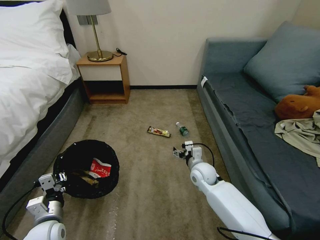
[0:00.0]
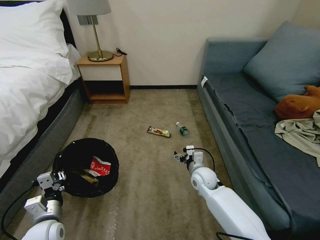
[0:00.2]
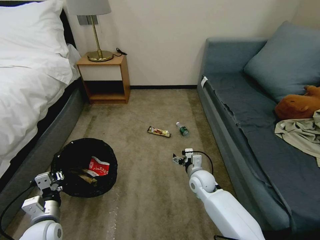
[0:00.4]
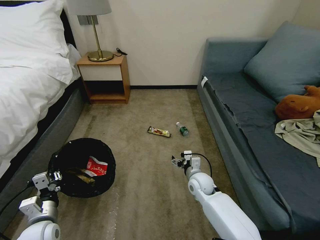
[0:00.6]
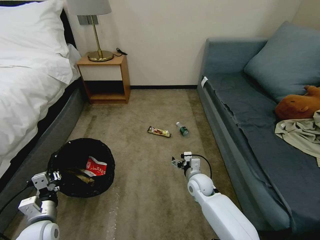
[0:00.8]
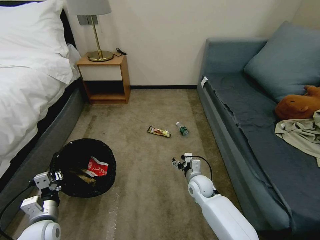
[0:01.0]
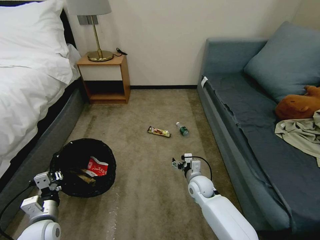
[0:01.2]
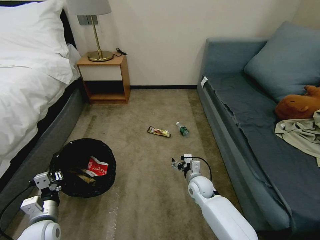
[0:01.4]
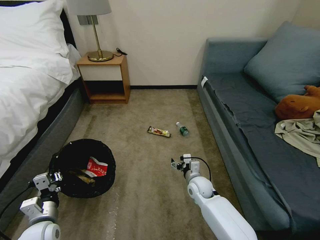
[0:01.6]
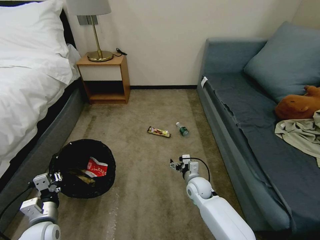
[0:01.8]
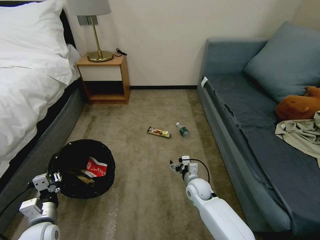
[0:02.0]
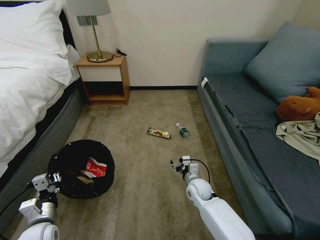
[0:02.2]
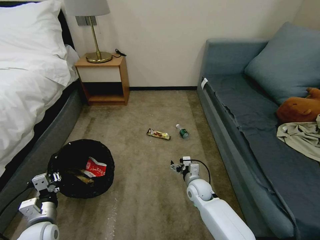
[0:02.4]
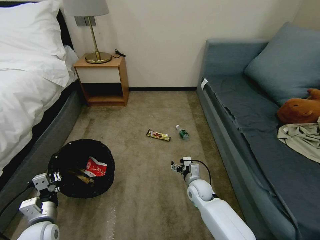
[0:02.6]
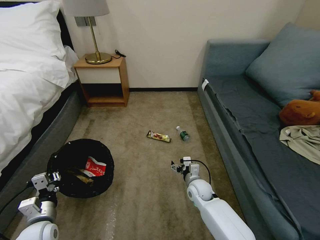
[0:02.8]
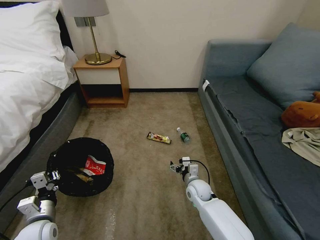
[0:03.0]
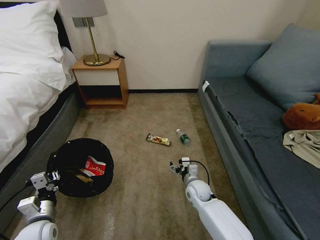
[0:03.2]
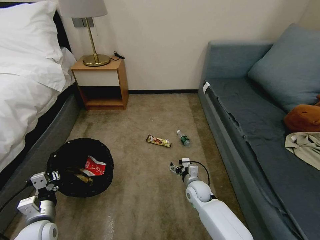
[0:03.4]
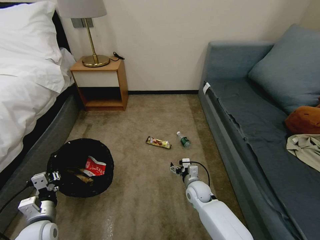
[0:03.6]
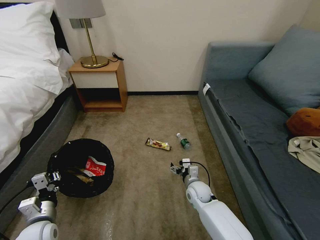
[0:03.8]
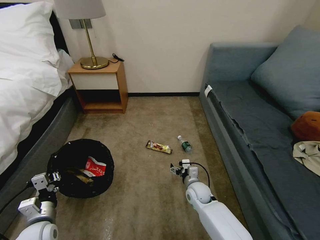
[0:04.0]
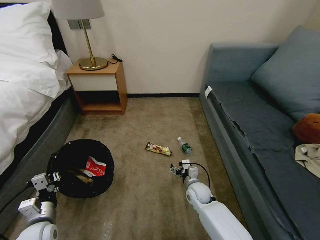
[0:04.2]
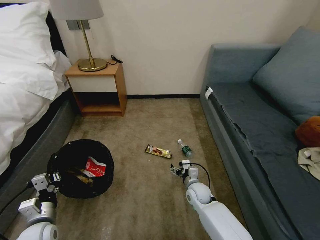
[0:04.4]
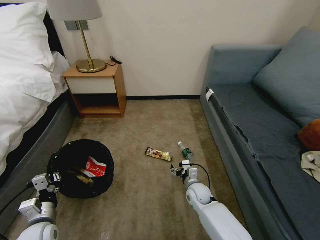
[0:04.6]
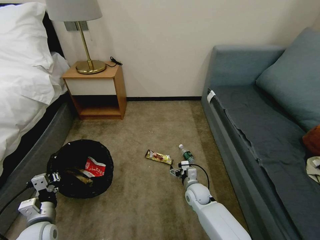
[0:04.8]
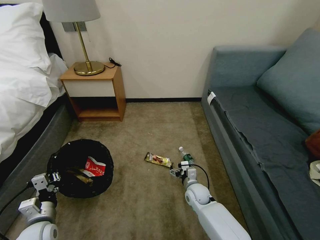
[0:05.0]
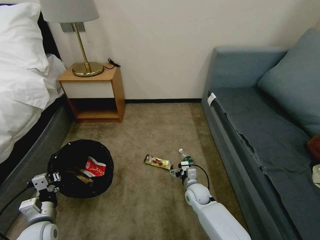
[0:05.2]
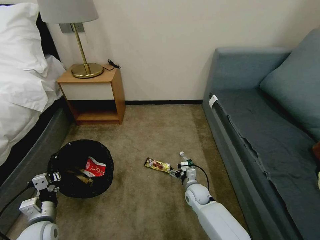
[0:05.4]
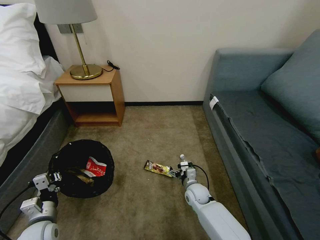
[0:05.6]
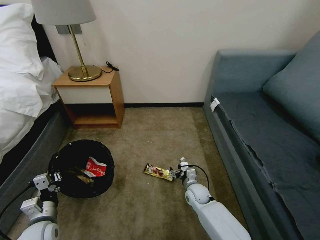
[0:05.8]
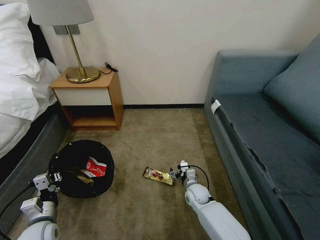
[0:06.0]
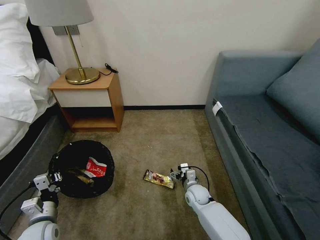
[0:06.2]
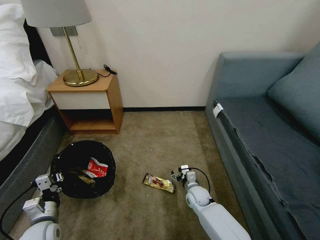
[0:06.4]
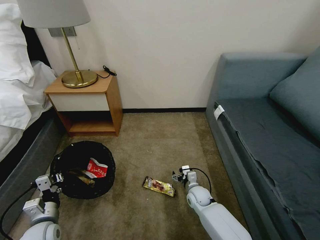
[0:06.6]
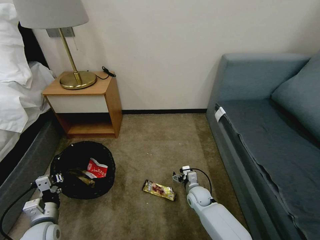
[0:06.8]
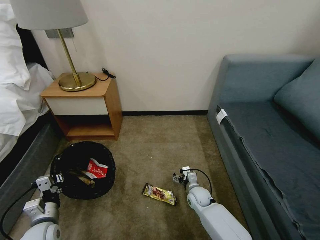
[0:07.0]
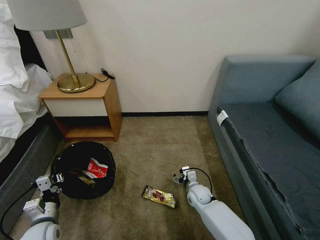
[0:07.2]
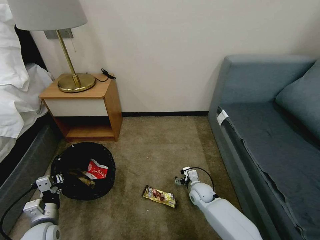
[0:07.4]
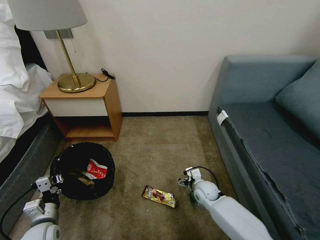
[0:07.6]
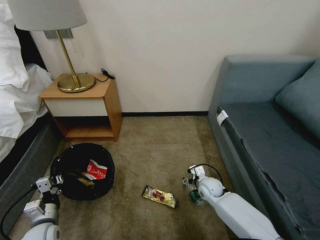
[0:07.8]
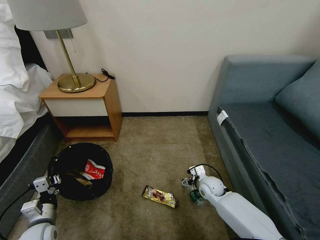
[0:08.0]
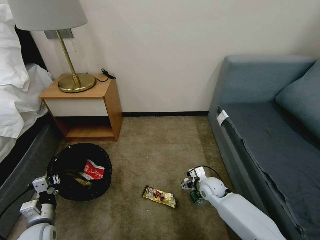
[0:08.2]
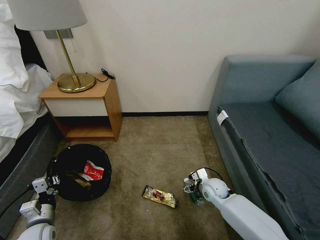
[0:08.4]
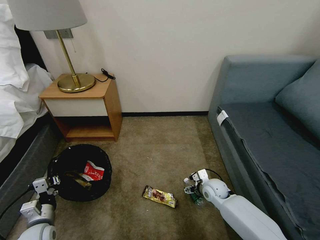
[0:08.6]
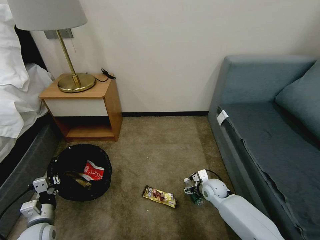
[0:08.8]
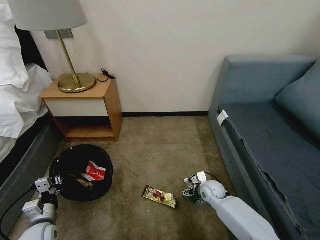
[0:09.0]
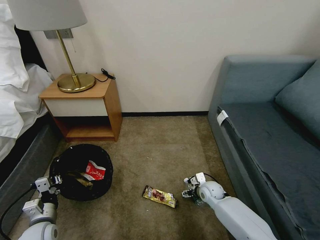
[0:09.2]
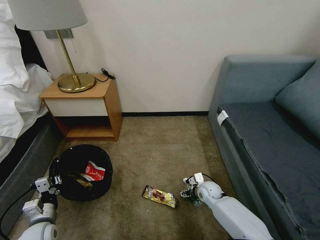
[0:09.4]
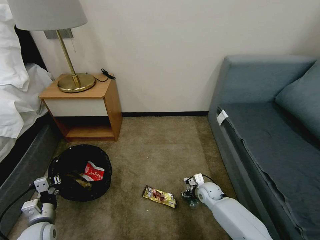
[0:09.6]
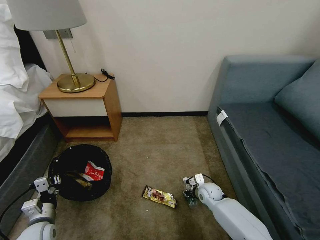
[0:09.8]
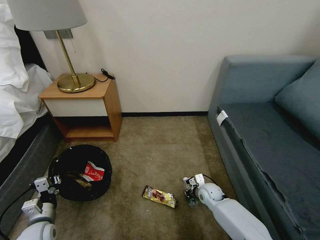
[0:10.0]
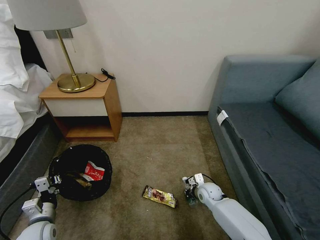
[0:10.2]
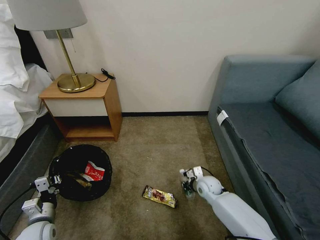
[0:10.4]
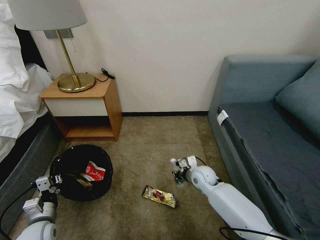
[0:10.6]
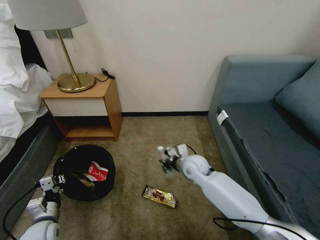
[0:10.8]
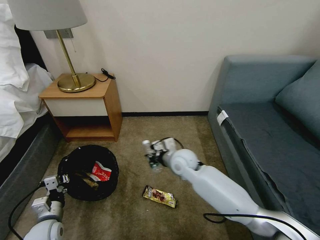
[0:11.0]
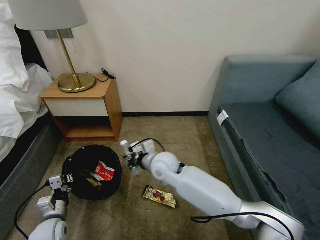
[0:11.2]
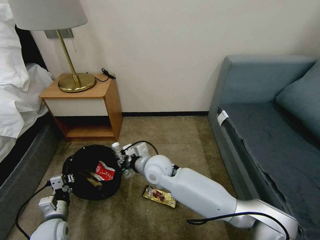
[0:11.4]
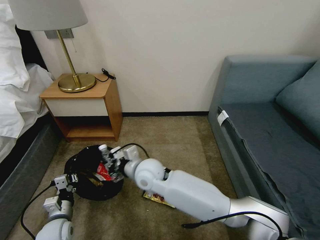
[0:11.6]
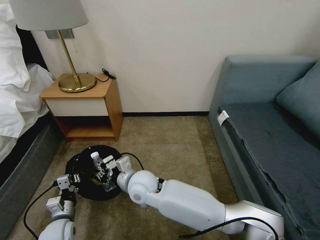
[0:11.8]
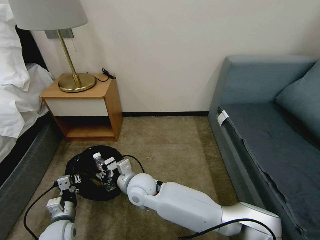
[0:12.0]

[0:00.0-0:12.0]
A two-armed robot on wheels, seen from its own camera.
Task of the whole recording: Pick up the trash bin, then pick up the garbage on the floor and place it into the trash bin.
0:00.0 to 0:01.6: The right gripper heads downward, covering some 5 cm.
0:01.6 to 0:03.0: The grippers make only small movements.
0:03.0 to 0:04.4: Neither gripper changes place.
0:07.6 to 0:09.0: The grippers make only small movements.
0:09.0 to 0:10.4: The right gripper closes.
0:10.4 to 0:12.0: The right gripper goes roughly 30 cm to the left and upward. Meanwhile the left gripper moves to the right, roughly 5 cm.

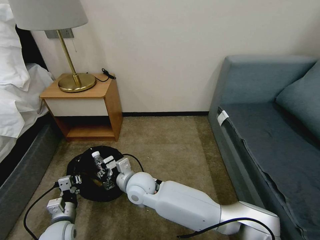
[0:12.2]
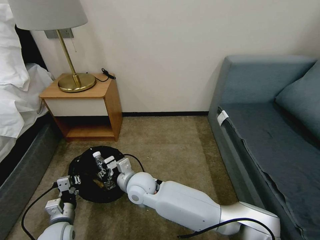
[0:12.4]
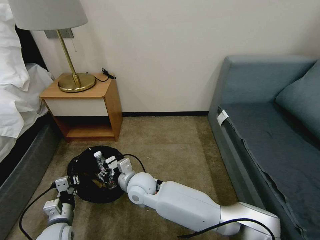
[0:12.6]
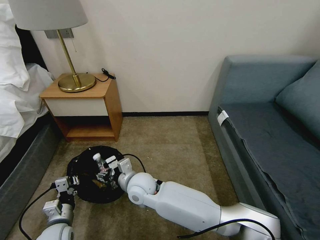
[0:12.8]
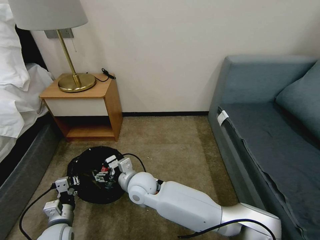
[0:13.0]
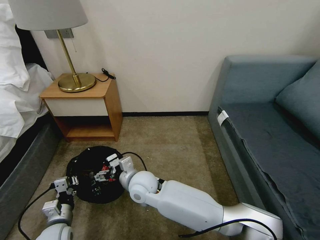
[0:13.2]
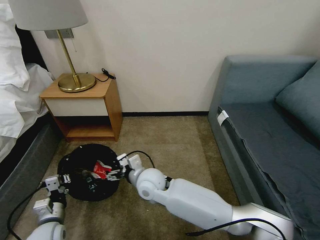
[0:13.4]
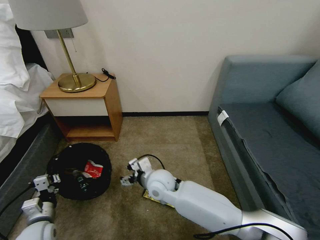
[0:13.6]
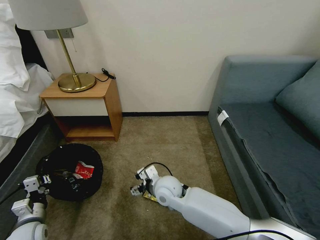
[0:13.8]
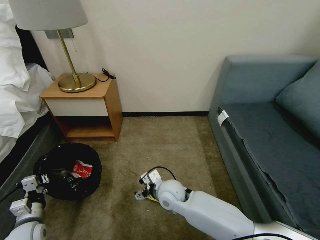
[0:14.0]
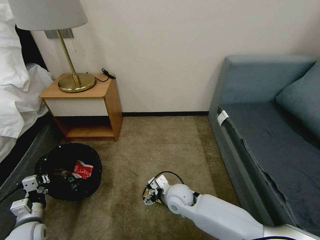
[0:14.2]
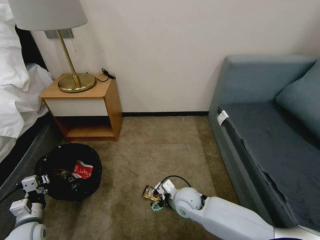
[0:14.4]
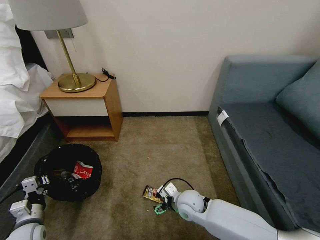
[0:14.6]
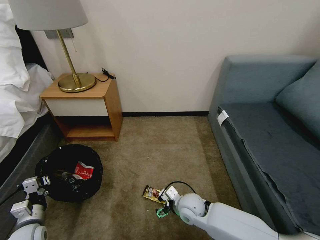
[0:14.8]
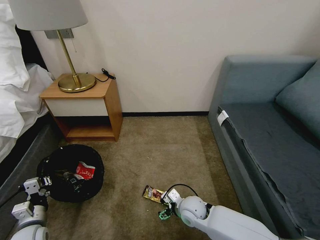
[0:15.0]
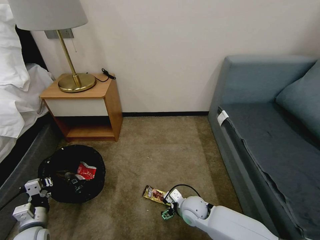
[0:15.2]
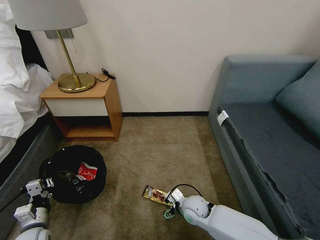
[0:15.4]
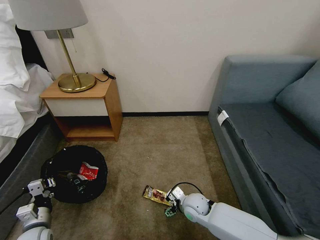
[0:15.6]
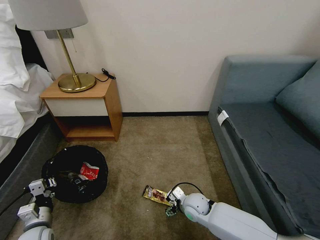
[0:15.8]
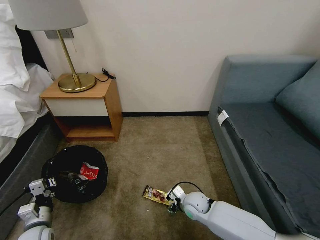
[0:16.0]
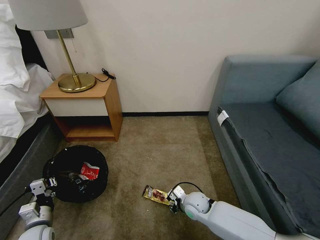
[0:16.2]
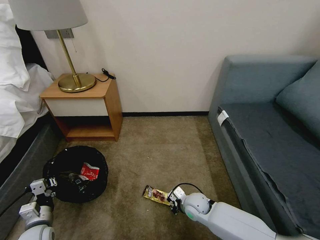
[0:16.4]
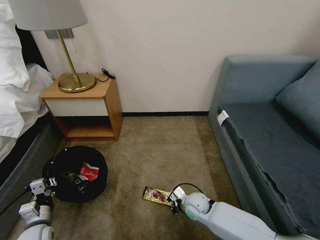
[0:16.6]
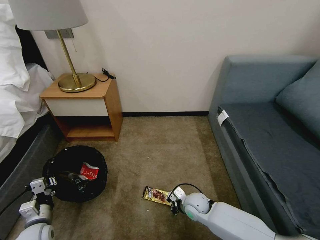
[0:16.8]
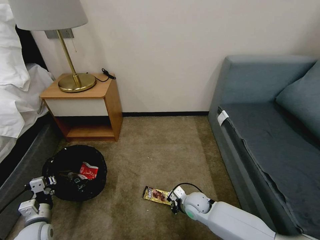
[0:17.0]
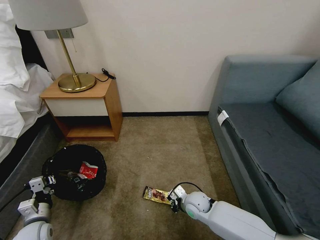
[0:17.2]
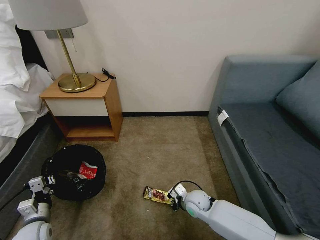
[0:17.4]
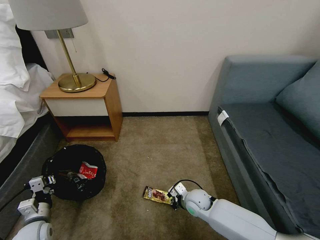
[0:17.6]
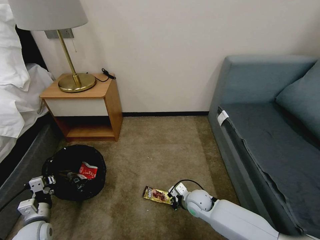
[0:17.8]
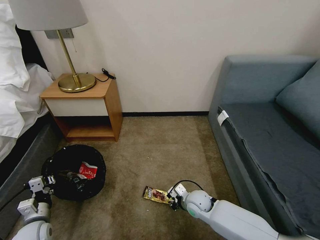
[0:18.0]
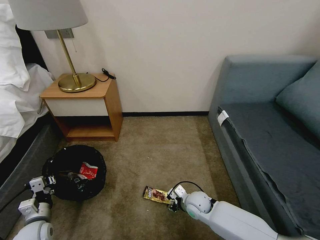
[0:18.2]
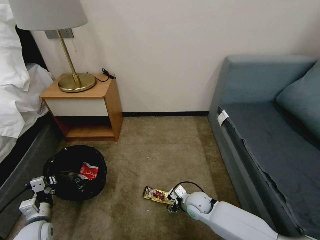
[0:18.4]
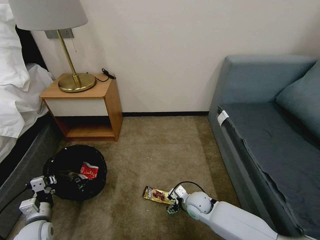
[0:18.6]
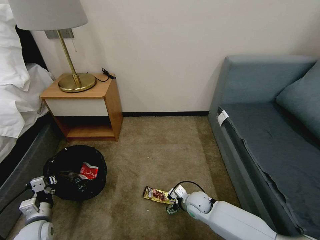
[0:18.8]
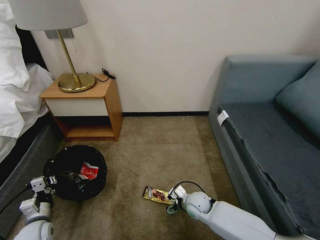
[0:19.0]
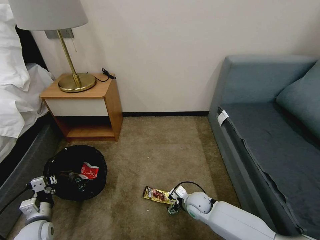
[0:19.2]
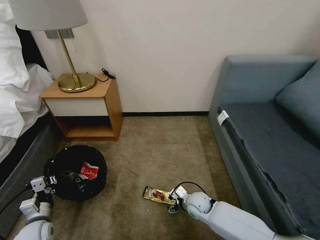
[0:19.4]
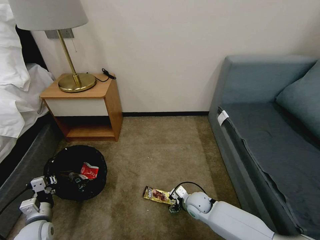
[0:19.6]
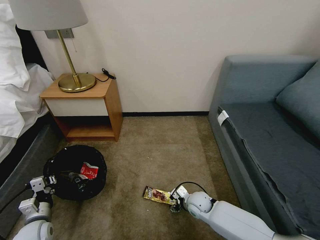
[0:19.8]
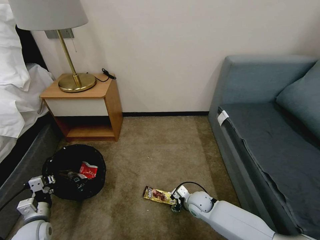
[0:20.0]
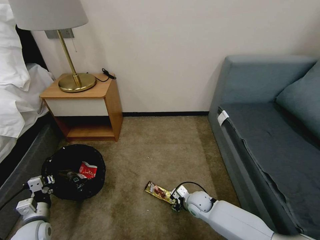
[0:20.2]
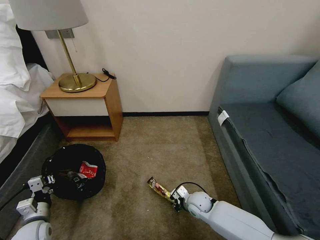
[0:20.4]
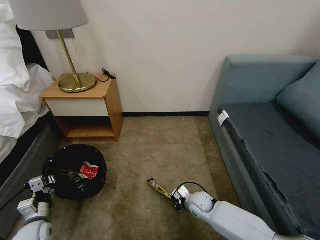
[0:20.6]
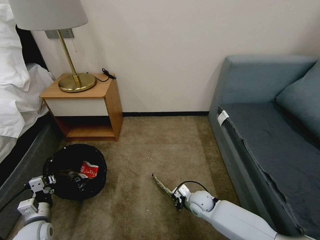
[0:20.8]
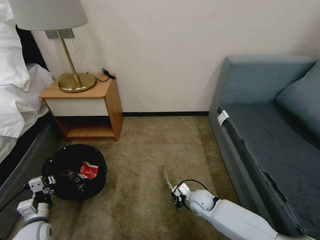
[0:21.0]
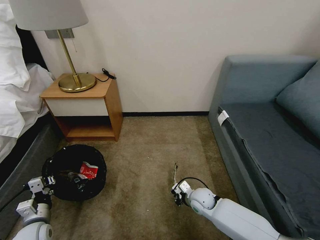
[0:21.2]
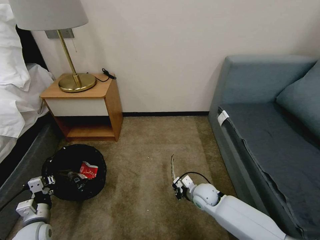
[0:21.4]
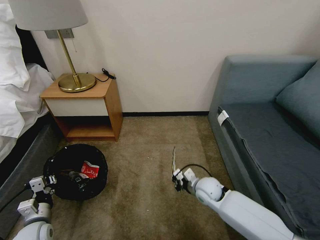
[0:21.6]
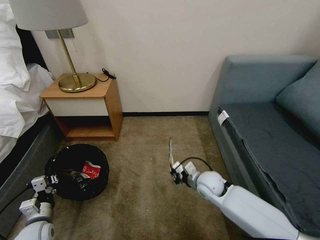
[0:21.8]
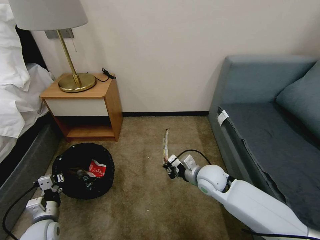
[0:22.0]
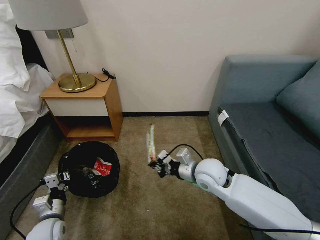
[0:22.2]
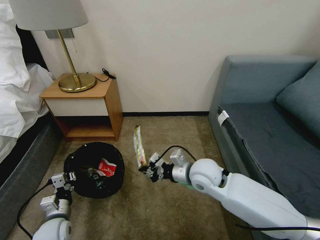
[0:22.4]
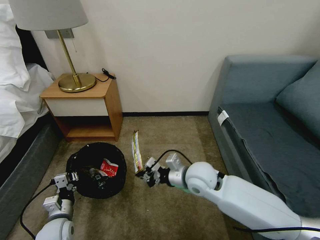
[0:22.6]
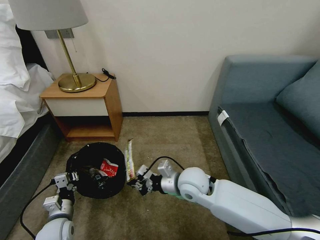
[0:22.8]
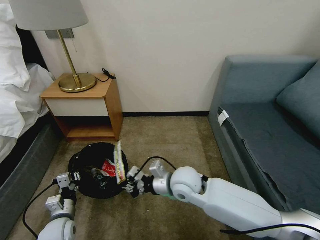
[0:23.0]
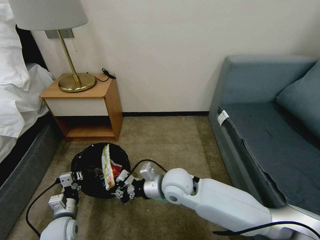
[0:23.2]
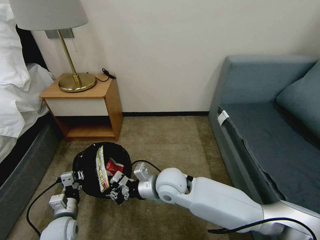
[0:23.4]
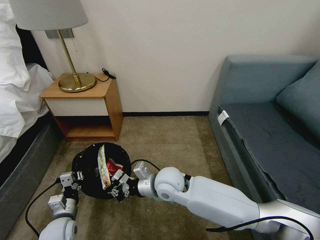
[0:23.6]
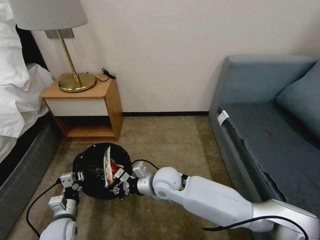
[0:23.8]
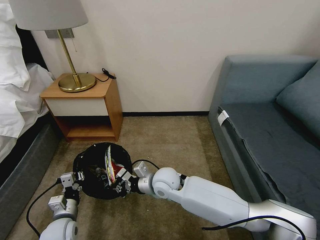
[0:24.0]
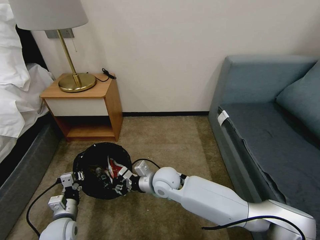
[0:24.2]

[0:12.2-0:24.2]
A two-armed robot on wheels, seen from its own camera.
Task of the whole recording: Pick up the trash bin, then pick up the garbage on the floor and place it into the trash bin.
0:12.2 to 0:13.8: The right gripper travels to the right by roughly 10 cm, and opens its fingers, while the left gripper moves to the left, some 5 cm.
0:13.8 to 0:15.2: The right gripper travels to the right and downward by approximately 15 cm.
0:15.2 to 0:16.6: The right gripper closes its fingers.
0:16.6 to 0:18.2: The right gripper opens its fingers.
0:18.2 to 0:19.8: The grippers move only a little.
0:19.8 to 0:21.2: The right gripper closes up.
0:21.2 to 0:22.6: The left gripper shifts approximately 5 cm to the right. The right gripper heads upward, covering approximately 20 cm.
0:22.6 to 0:24.2: The right gripper is displaced to the left and downward by some 10 cm.
